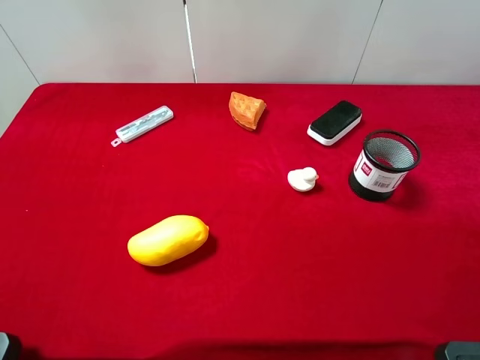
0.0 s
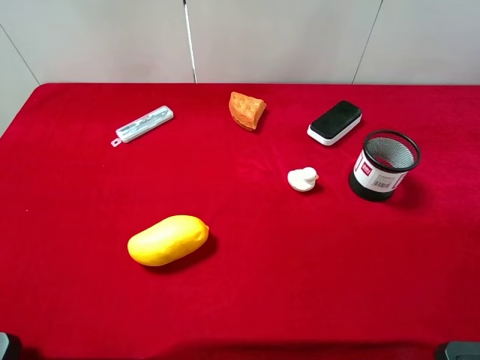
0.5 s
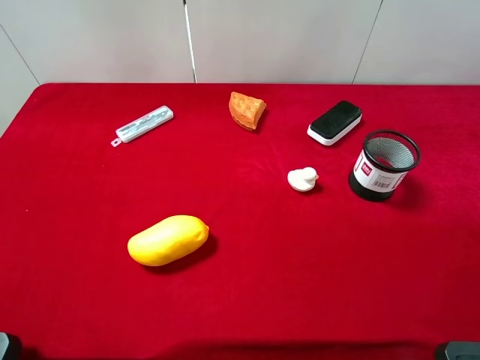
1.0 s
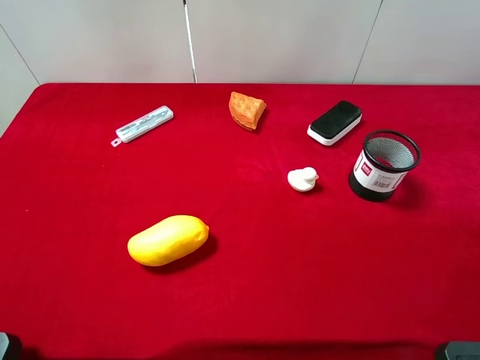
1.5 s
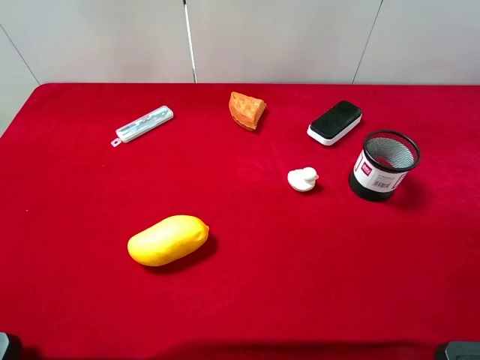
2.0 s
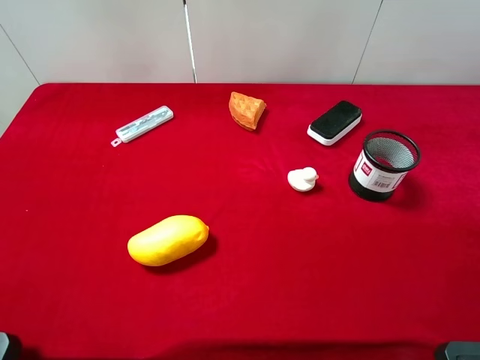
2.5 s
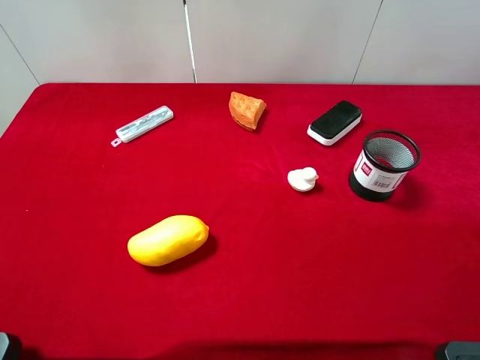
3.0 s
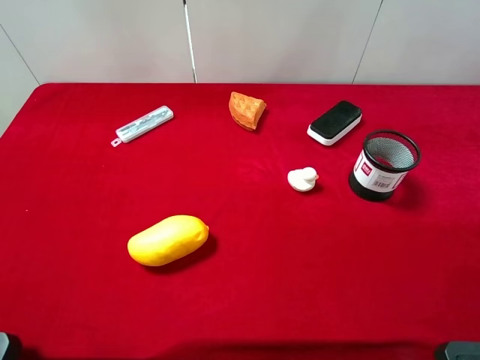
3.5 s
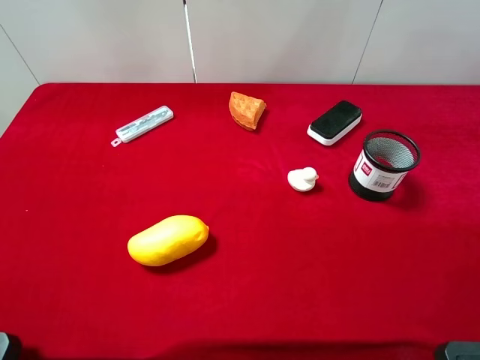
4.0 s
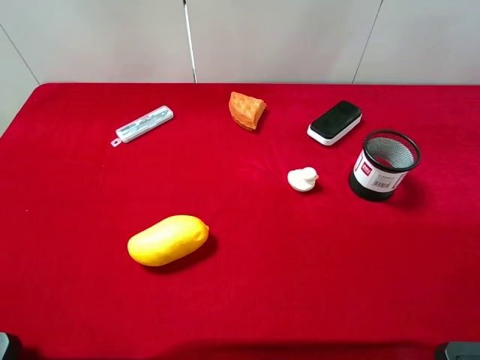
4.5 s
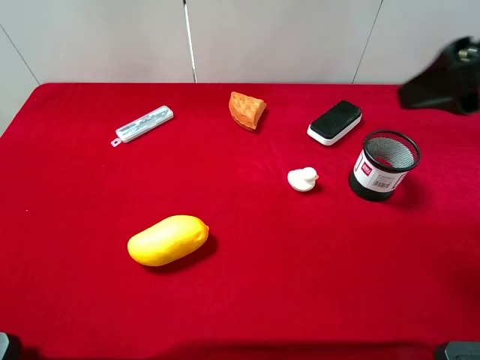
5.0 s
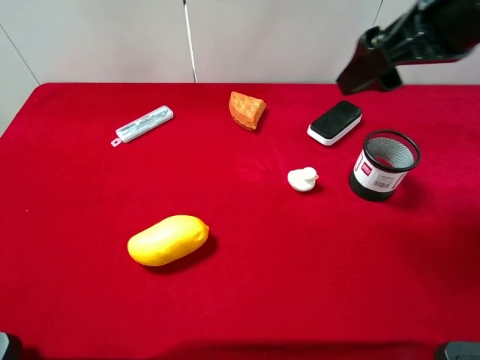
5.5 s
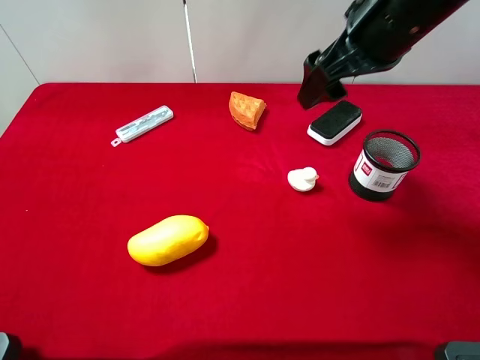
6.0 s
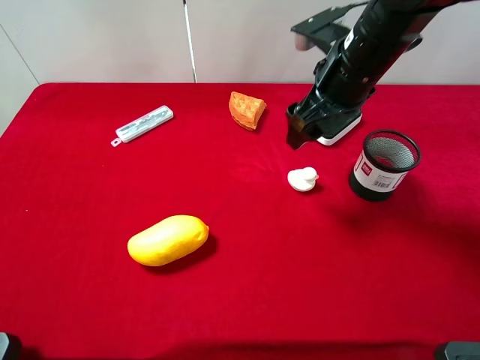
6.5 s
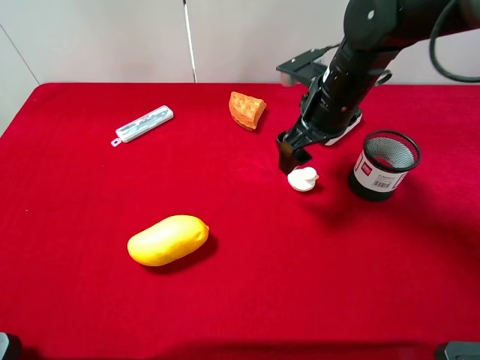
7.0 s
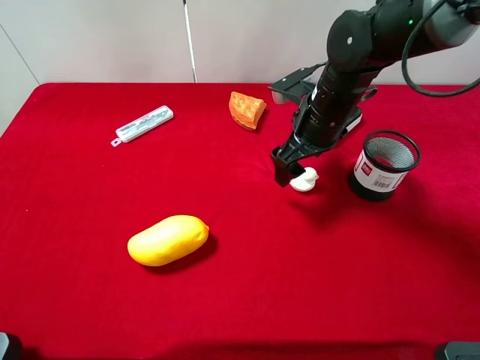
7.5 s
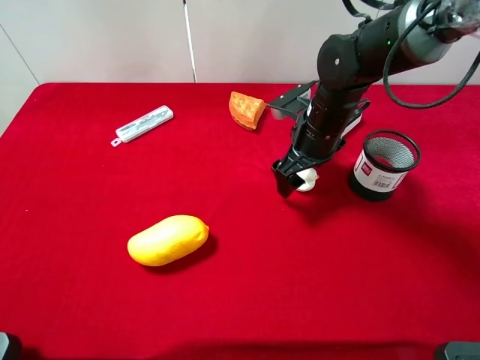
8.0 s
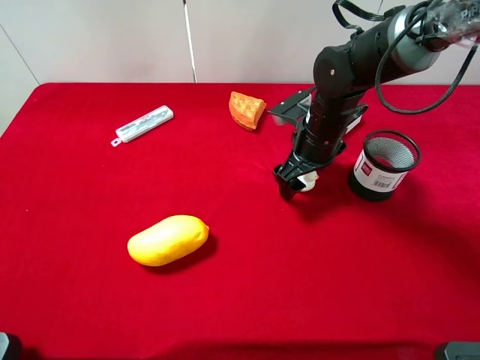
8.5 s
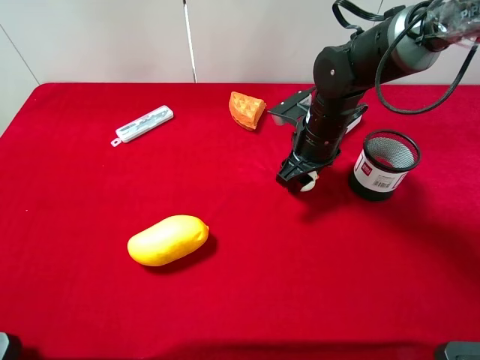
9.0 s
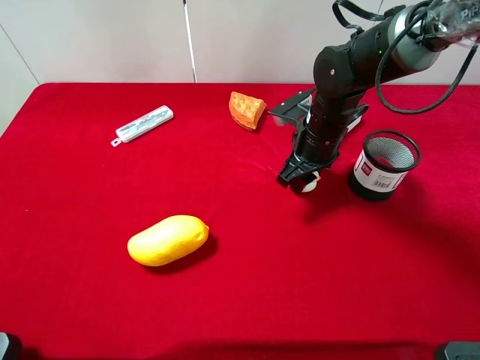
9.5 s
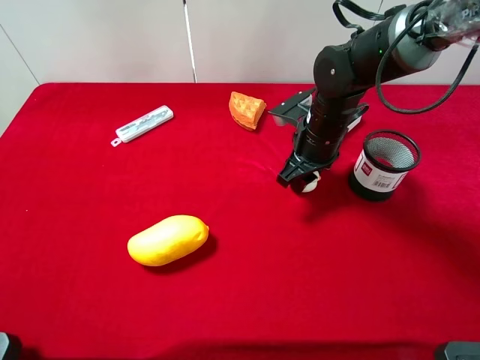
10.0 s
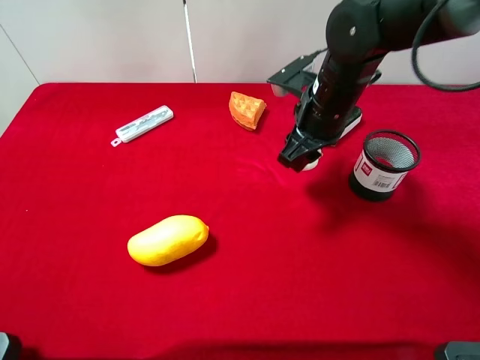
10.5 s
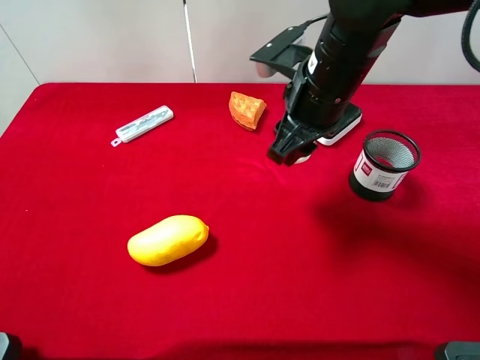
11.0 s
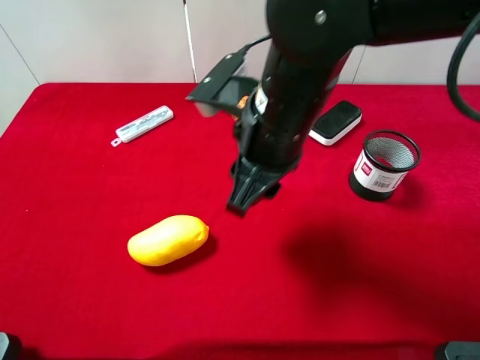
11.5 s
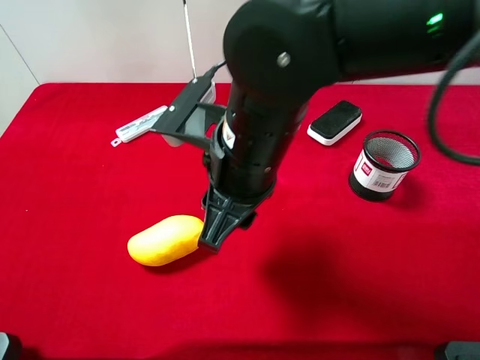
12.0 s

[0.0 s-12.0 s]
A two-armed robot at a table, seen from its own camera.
Task of the whole recording: the gripper move the object.
Step, 0.0 to 9.0 s: Grasp the white duck with the right gripper.
0.0 to 2.0 s: Neither gripper changes place.
4.0 to 6.0 s: The right gripper shifts some 25 cm forward and to the left.
6.0 to 8.0 s: The right gripper moves downward, about 15 cm.
8.0 to 10.0 s: The right gripper closes up.
10.0 to 12.0 s: The right gripper is displaced backward, to the left and upward by roughly 20 cm.

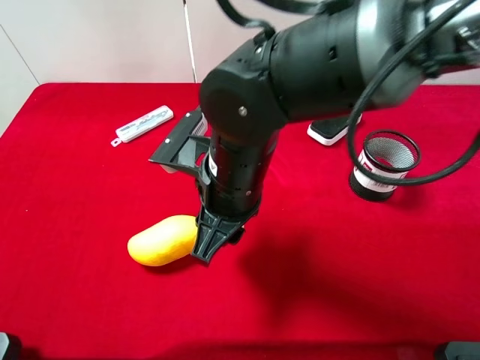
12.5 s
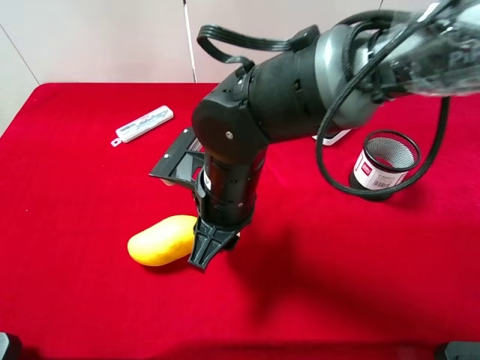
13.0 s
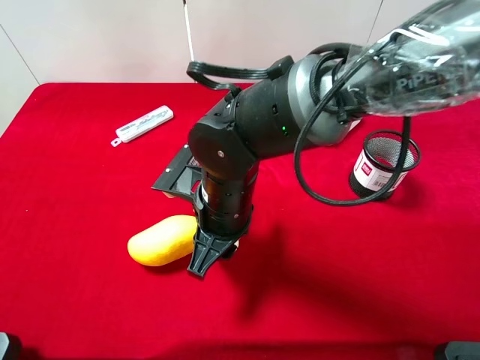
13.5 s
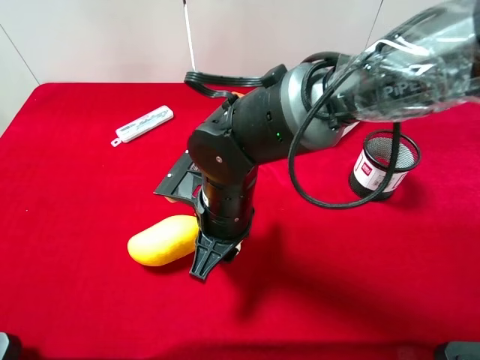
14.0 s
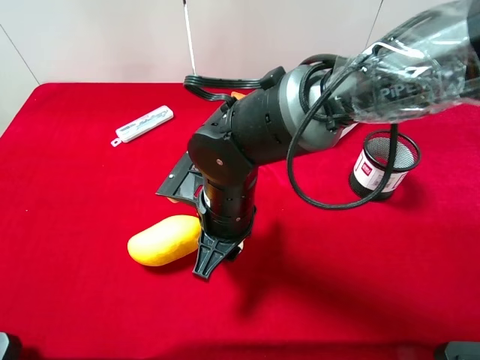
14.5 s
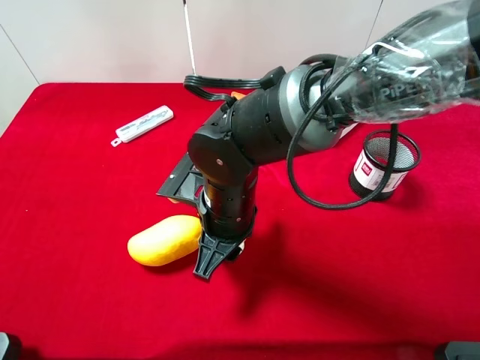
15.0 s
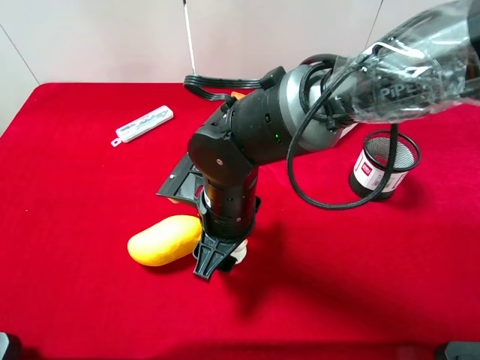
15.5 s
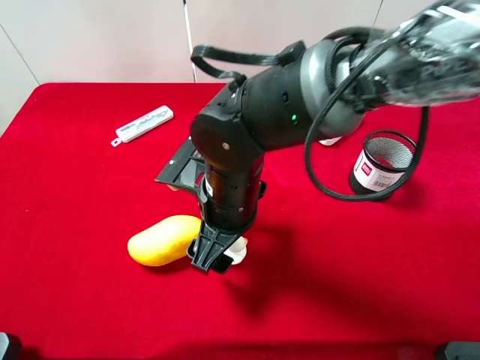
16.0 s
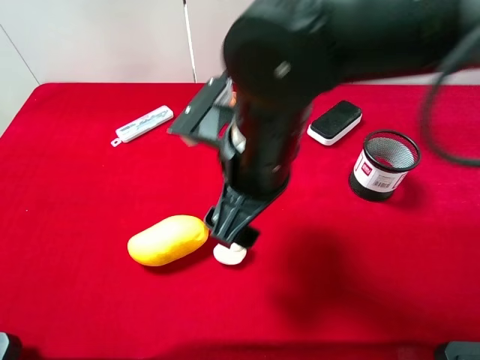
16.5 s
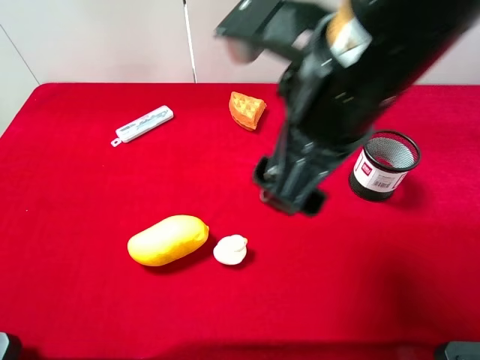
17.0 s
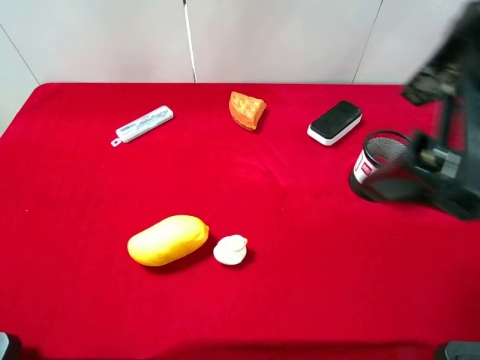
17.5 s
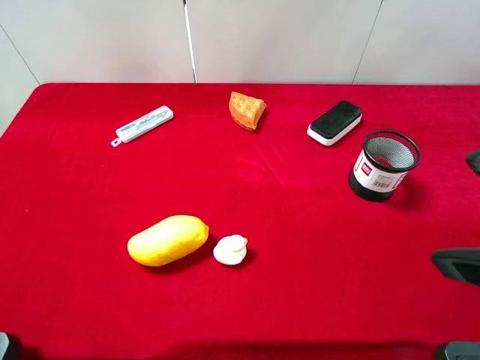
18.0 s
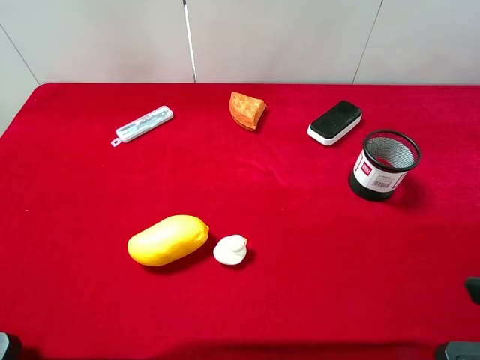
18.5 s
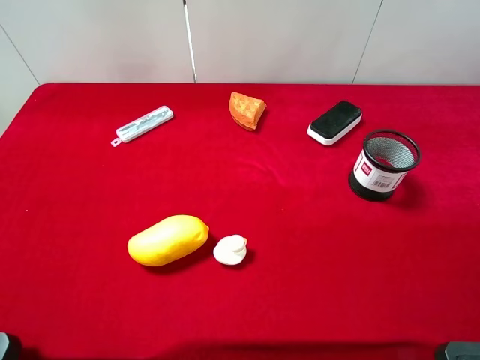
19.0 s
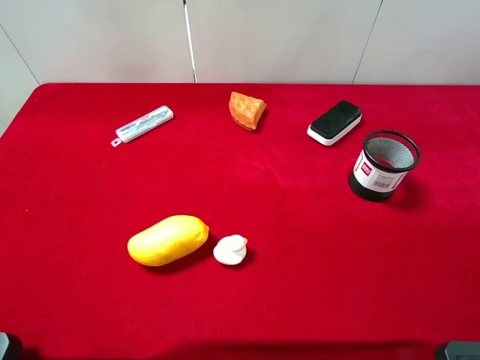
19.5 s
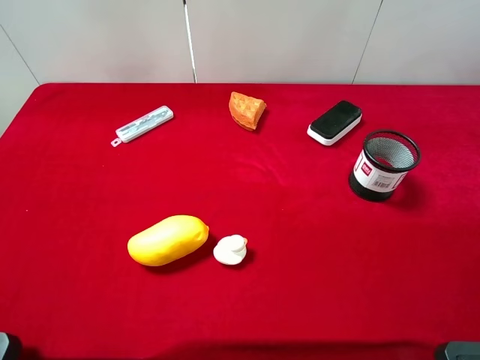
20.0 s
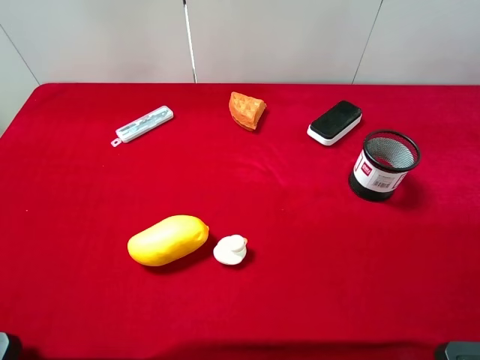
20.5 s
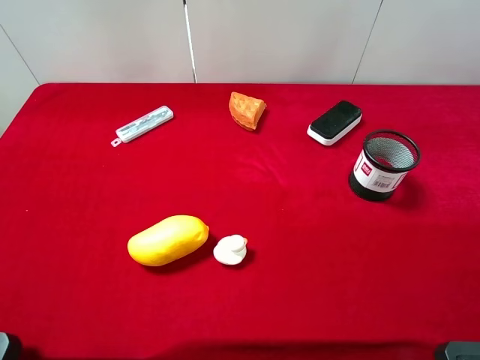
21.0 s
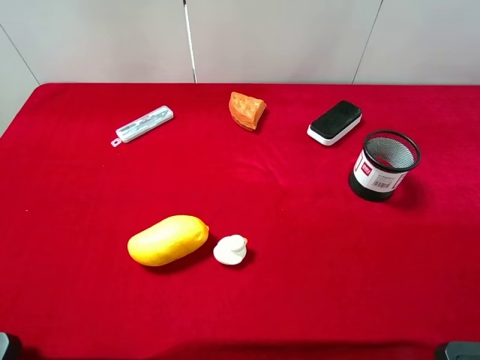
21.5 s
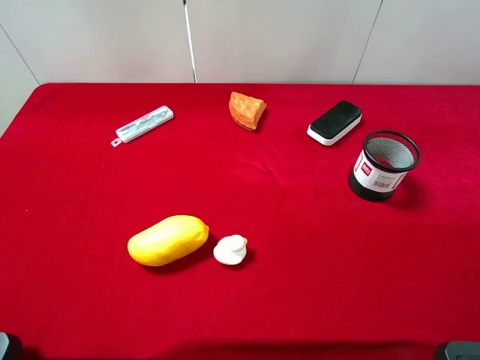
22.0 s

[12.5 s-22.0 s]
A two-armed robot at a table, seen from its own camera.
Task of the whole recording: the gripper move the object.
Step, 12.5 to 16.0 s: Place the white duck on the table with the right gripper.
12.5 to 14.5 s: The right gripper moves downward, roughly 5 cm.
14.5 to 16.5 s: The right gripper goes some 10 cm upward, and opens its fingers.
16.5 to 18.0 s: The right gripper goes some 25 cm to the right, backward and upward.

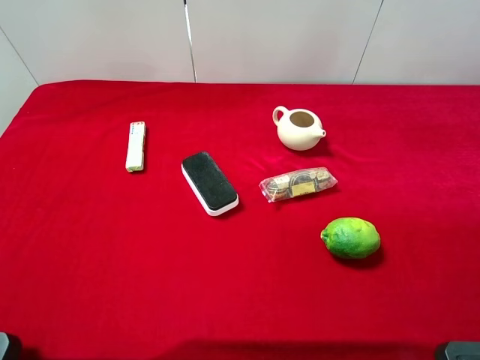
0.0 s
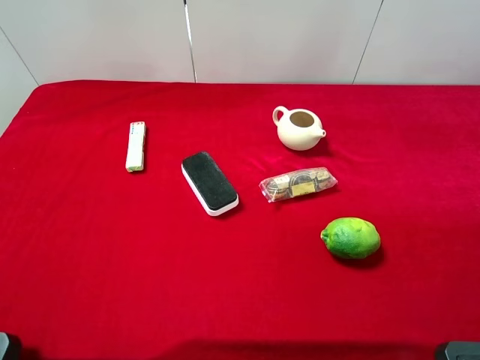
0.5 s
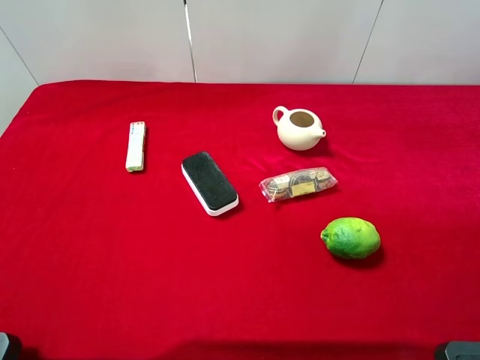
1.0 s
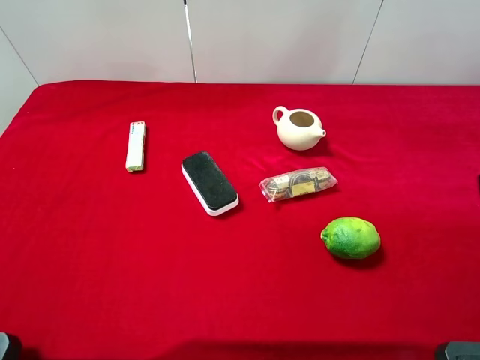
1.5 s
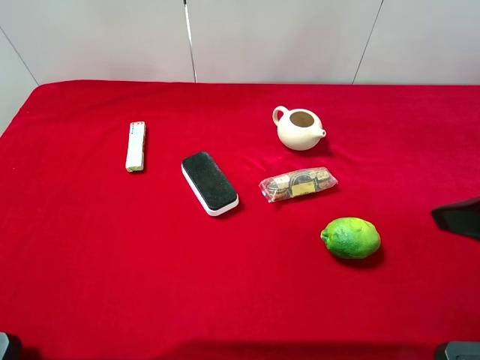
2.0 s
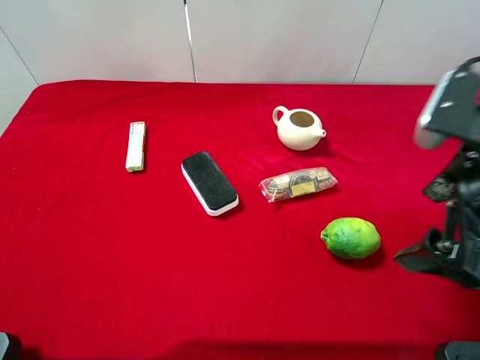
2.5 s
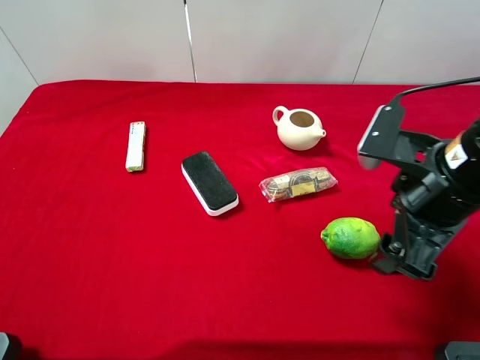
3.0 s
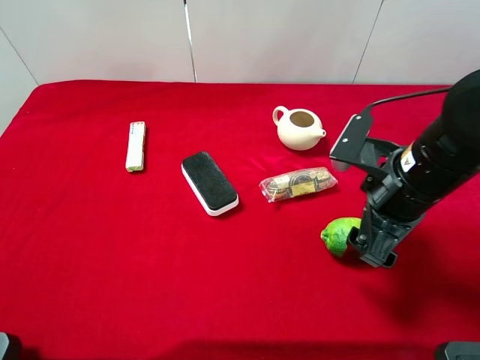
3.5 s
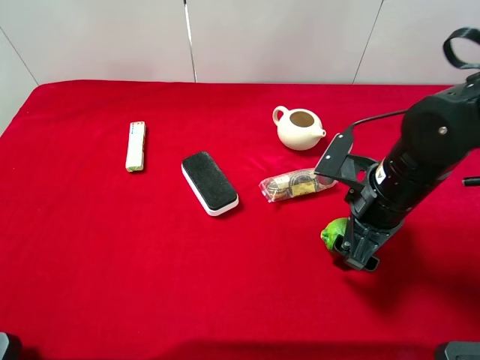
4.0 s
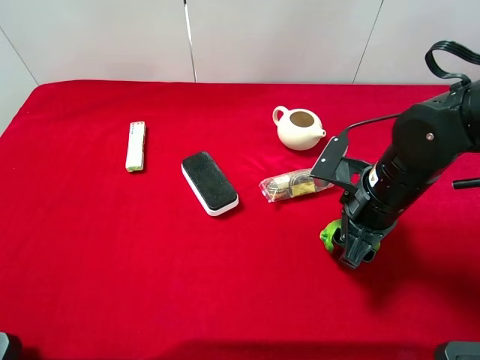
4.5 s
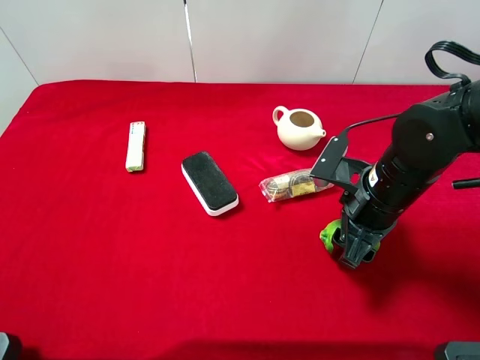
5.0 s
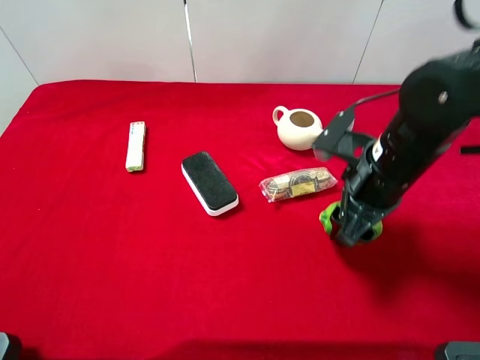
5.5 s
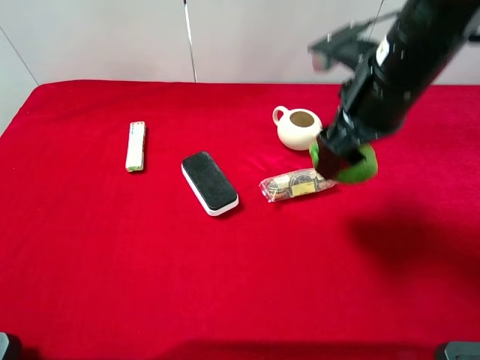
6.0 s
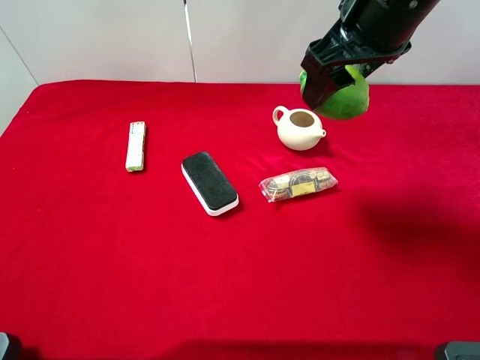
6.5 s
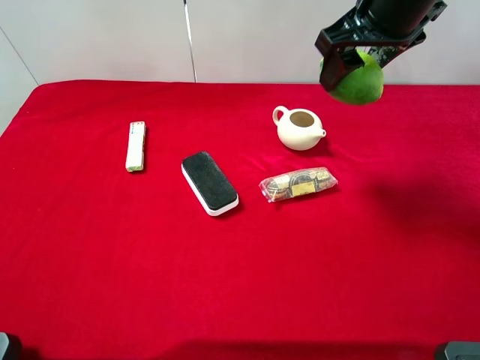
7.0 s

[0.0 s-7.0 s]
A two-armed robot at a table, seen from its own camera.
Task of the whole recording: the gripper move the object.
Step, 0.0 to 4.5 s: Grasp the green lemon with the right gripper.
0.0 to 2.0 s: The right gripper goes about 10 cm forward.
2.0 to 3.5 s: The right gripper is displaced downward, to the left and forward by some 15 cm.
3.5 to 5.0 s: The right gripper closes its fingers.
5.0 to 7.0 s: The right gripper shifts about 20 cm upward and forward.
